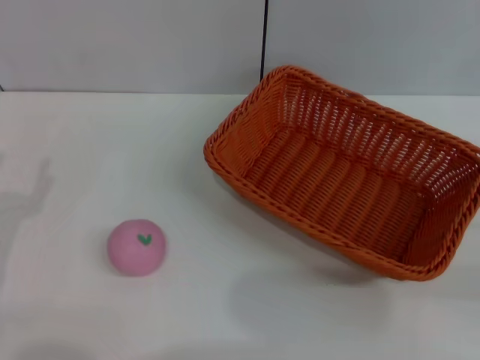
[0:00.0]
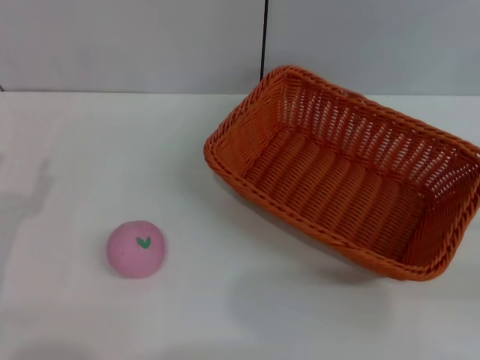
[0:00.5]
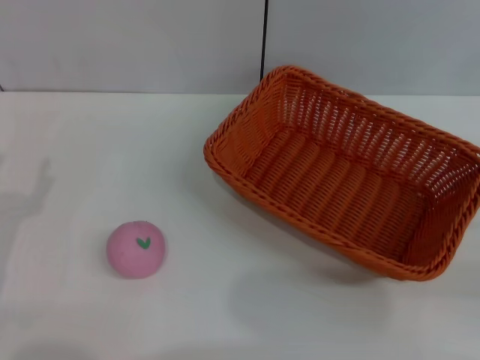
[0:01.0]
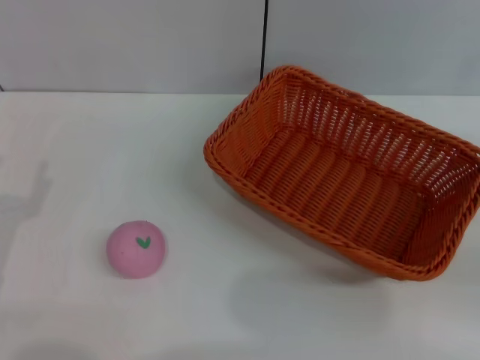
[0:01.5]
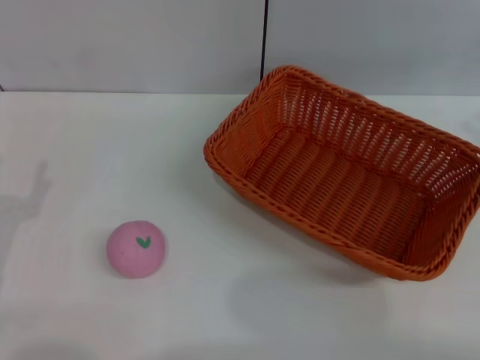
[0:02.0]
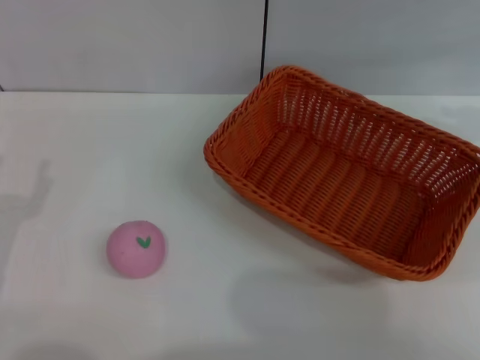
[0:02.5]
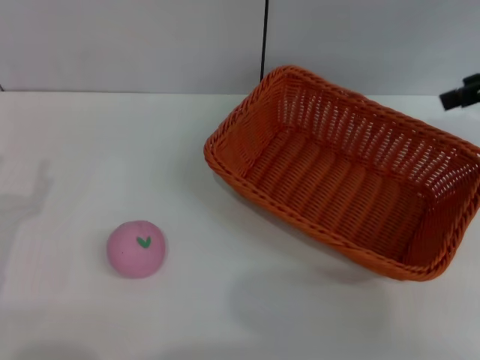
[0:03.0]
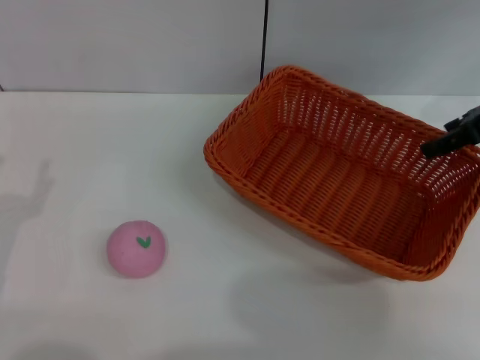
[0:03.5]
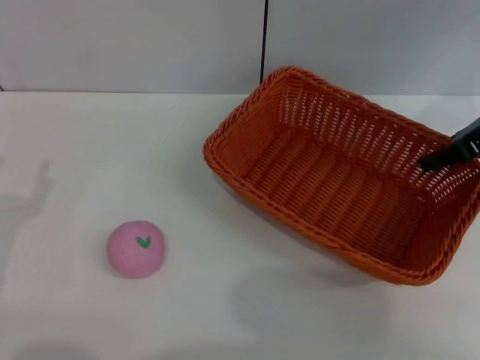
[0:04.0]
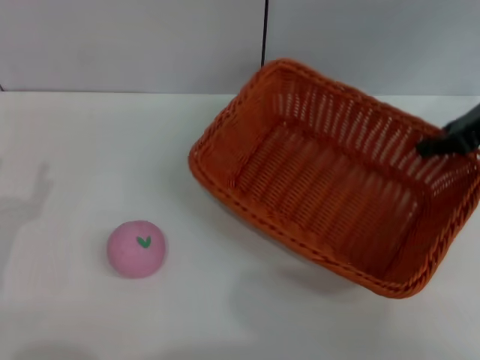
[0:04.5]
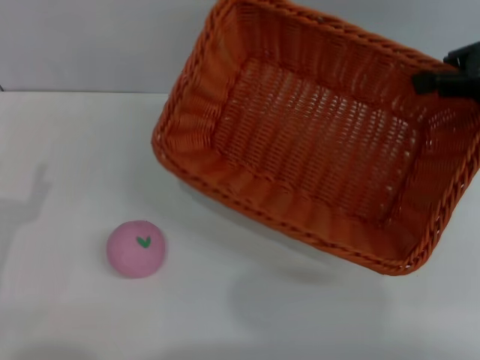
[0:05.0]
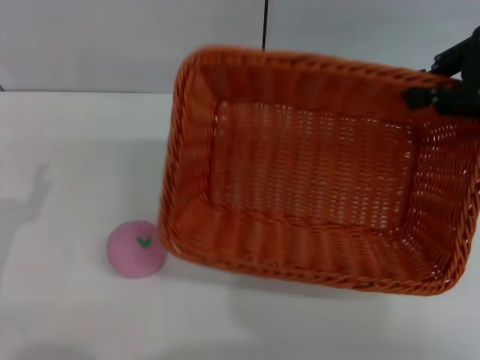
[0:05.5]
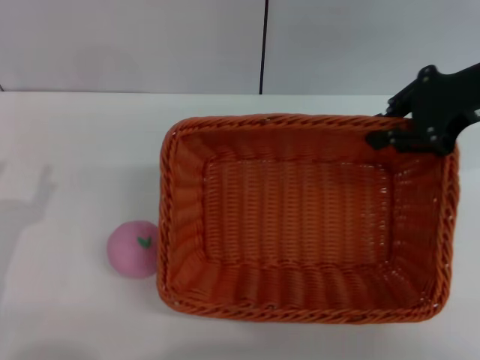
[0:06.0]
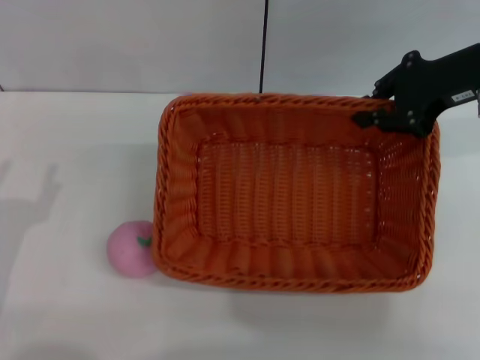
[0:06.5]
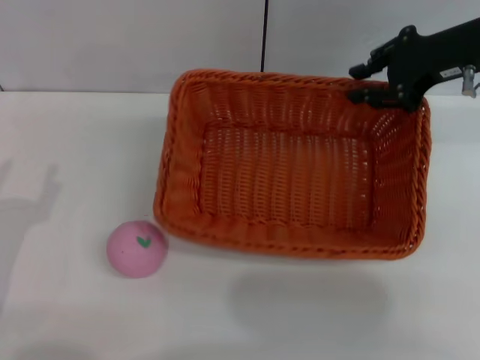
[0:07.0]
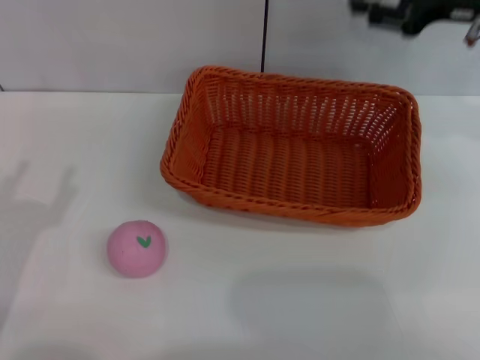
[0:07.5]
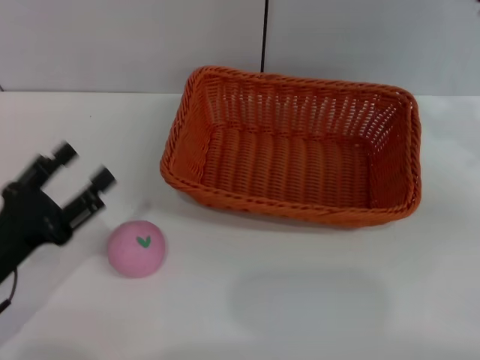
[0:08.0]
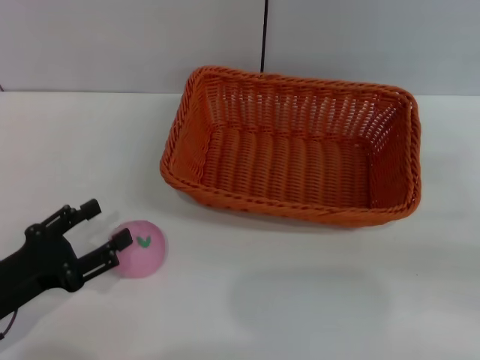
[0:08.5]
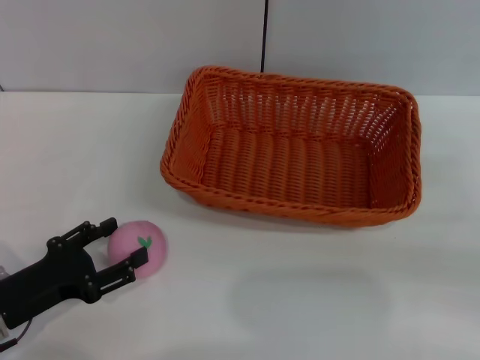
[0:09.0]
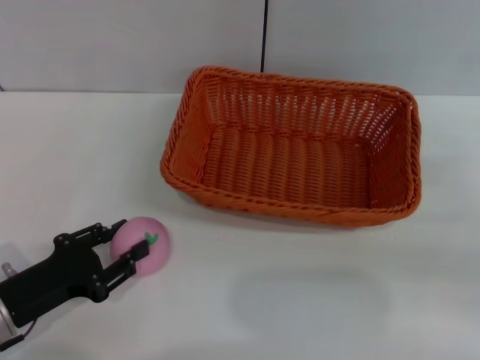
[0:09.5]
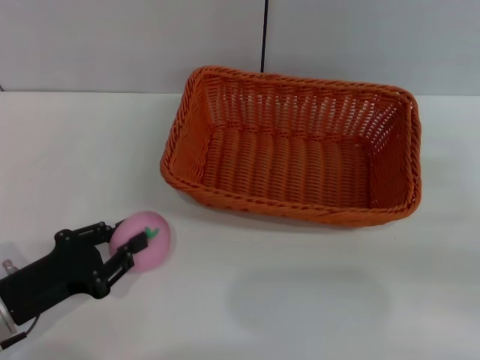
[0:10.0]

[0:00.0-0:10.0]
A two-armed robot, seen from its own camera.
Step, 0:00.0 to 0:04.5: Pick up the light basket with the right gripper.
Step, 0:05.5 to 0:07.5: Place the light basket in the center of view with the right gripper.
0:02.0 to 0:04.0: The right gripper shifts roughly 15 cm to the left and forward.
0:04.0 to 0:06.0: The right gripper ends up roughly 5 cm from where it was, and closes its fingers.
0:06.0 to 0:08.0: The right gripper is displaced to the right, downward and backward by some 15 cm, and opens up.
0:08.0 to 0:10.0: The left gripper closes its fingers.

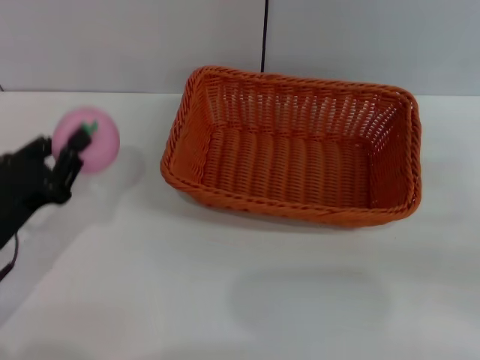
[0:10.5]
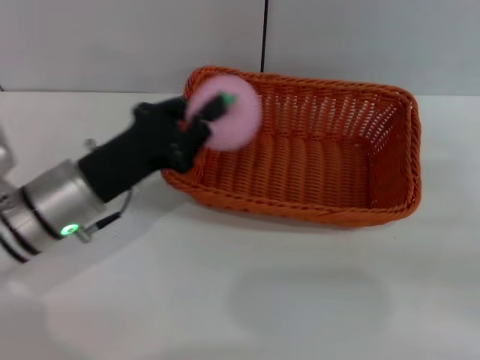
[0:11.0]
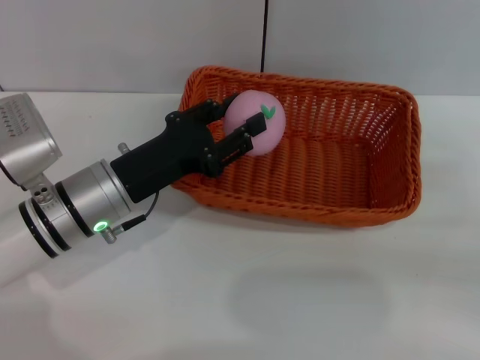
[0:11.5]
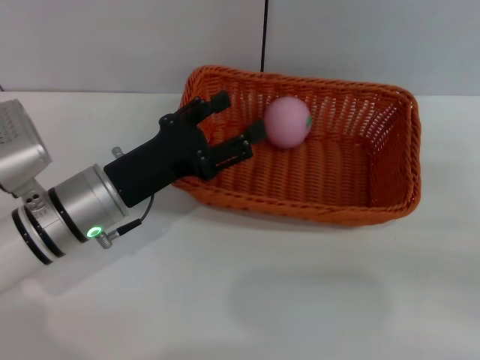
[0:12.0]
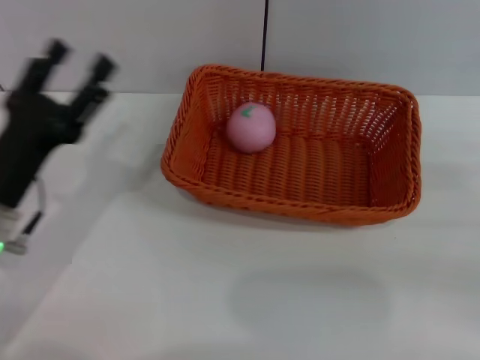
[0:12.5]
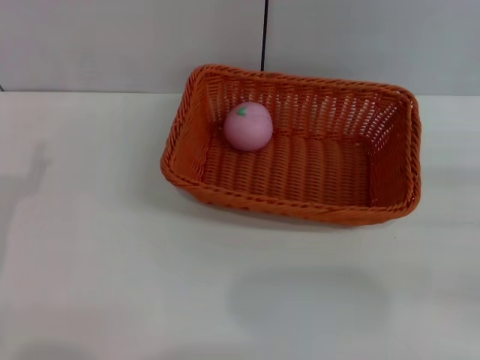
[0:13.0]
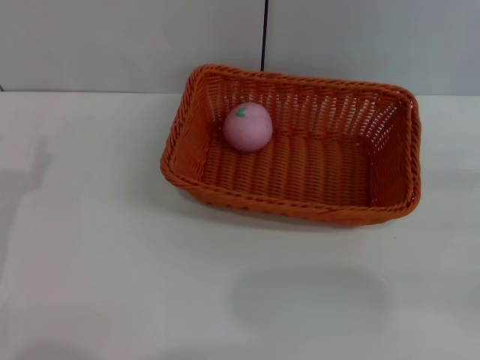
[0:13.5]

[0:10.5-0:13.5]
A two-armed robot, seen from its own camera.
Step, 0:10.5 to 0:11.5: Place the peach into the basket with the left gripper.
0:10.5 to 0:12.0: The left gripper moves to the right and forward, about 10 cm, and opens its fingers.
0:12.0 to 0:13.5: The left gripper goes about 15 cm to the left and backward.
